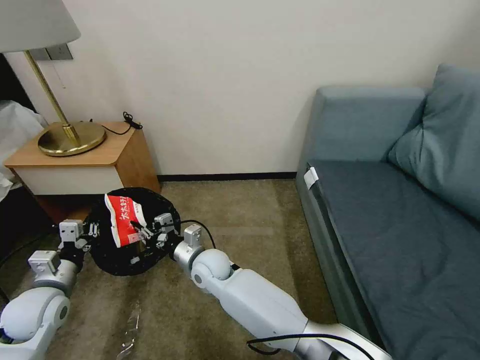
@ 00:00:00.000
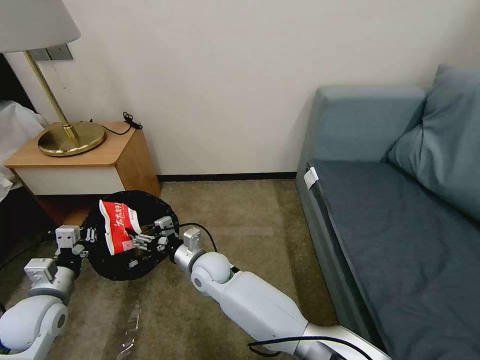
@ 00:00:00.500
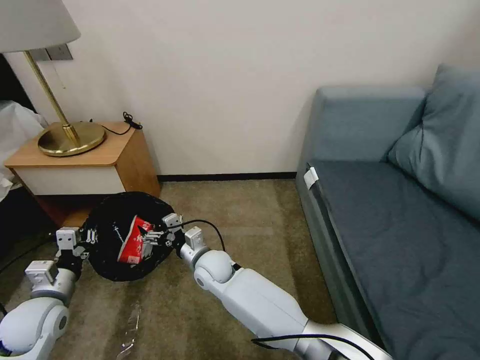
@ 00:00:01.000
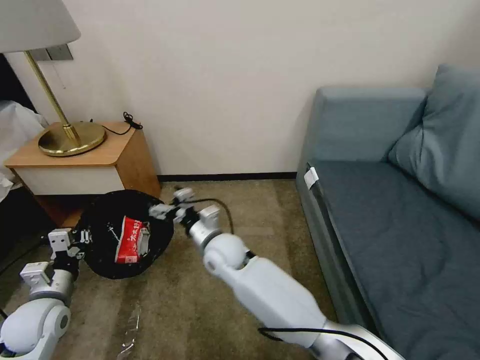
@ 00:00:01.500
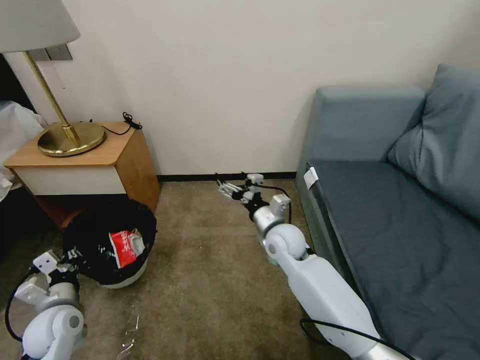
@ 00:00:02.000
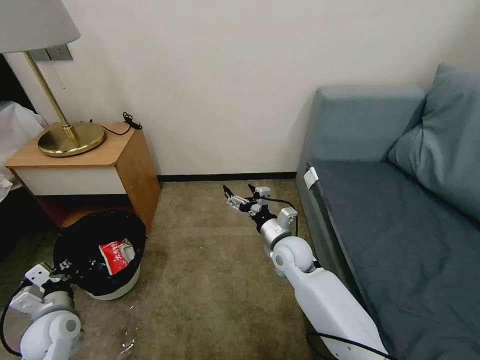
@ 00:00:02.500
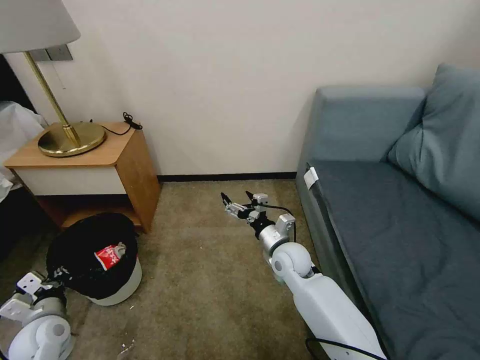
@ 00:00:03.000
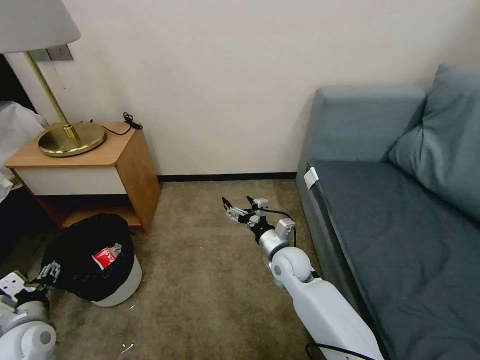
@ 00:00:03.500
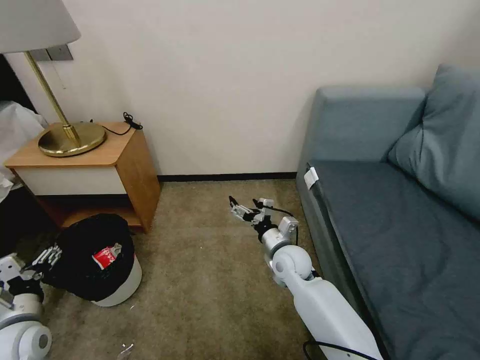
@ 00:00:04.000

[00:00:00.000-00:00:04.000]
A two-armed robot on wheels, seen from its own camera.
Task of the whole recording: Pick up the trash bin, then pick up the garbage on the floor and place it into the trash bin.
00:00:00.000 to 00:00:02.000: The right gripper heads to the right, covering some 20 cm, and opens its fingers. Meanwhile the left gripper shifts by about 5 cm.
00:00:02.000 to 00:00:04.000: The left gripper changes place by roughly 5 cm, and opens up; the right gripper moves downward, about 5 cm.
